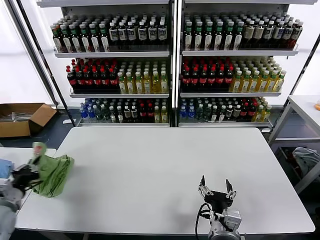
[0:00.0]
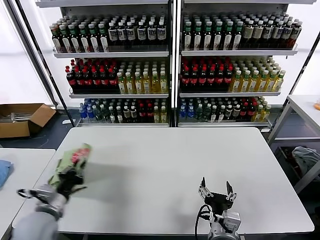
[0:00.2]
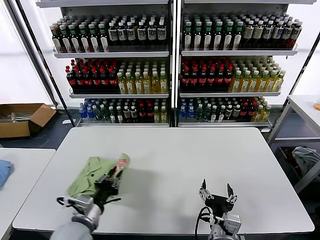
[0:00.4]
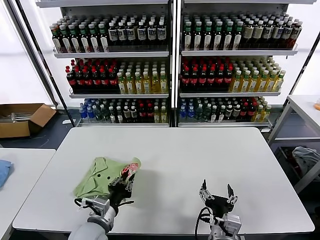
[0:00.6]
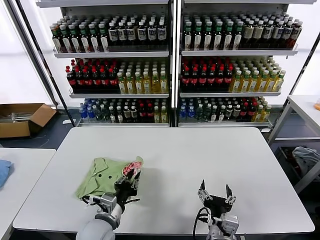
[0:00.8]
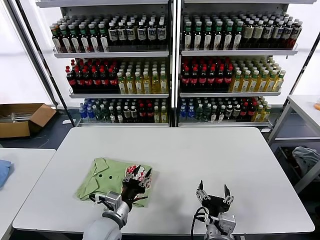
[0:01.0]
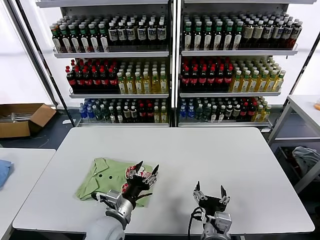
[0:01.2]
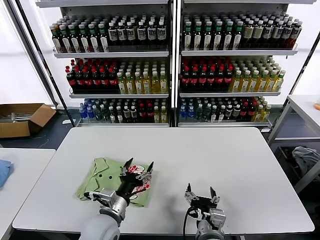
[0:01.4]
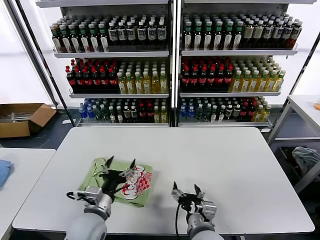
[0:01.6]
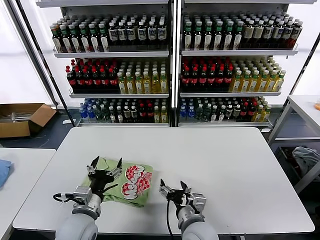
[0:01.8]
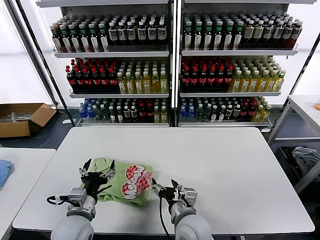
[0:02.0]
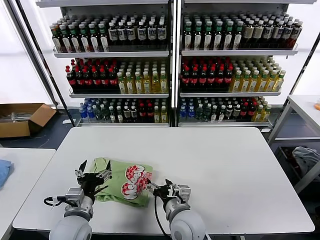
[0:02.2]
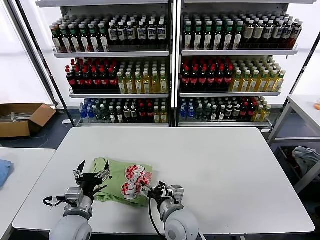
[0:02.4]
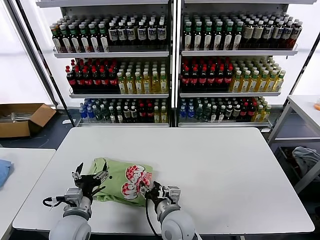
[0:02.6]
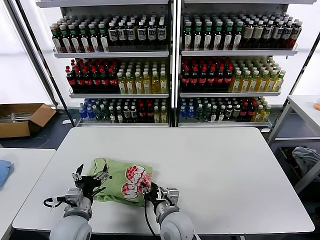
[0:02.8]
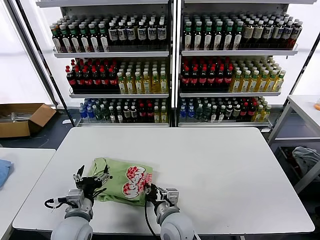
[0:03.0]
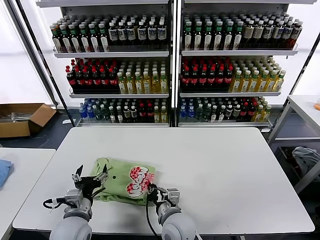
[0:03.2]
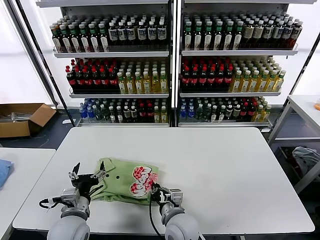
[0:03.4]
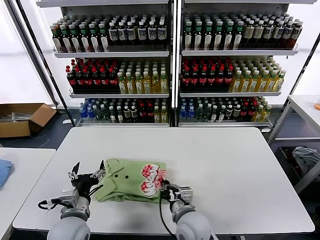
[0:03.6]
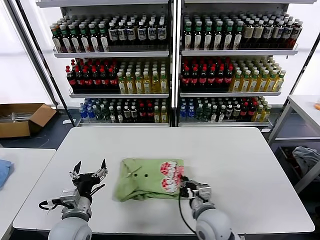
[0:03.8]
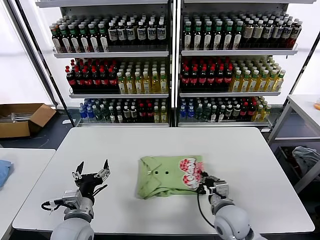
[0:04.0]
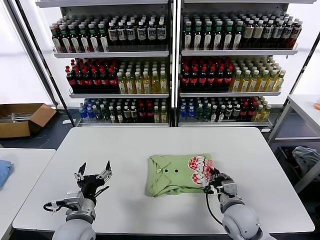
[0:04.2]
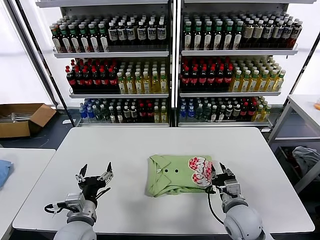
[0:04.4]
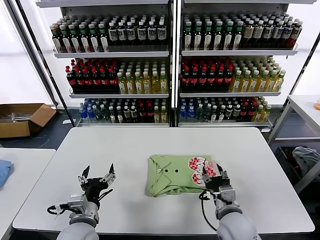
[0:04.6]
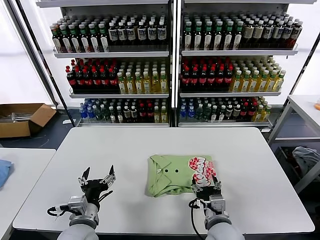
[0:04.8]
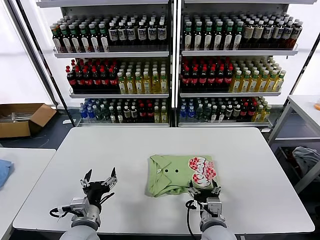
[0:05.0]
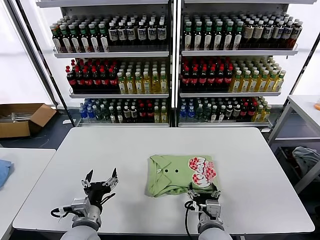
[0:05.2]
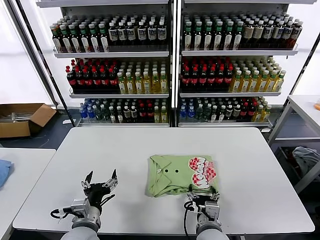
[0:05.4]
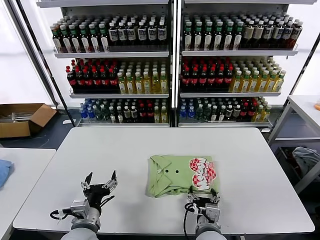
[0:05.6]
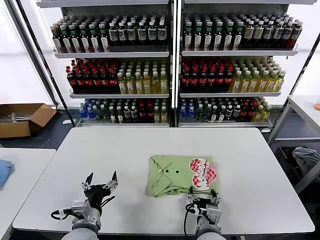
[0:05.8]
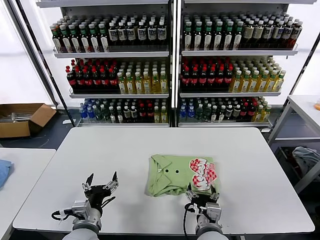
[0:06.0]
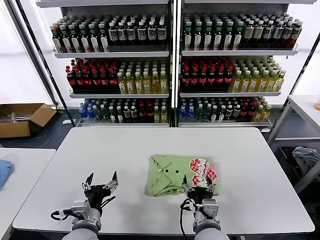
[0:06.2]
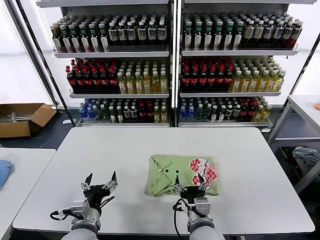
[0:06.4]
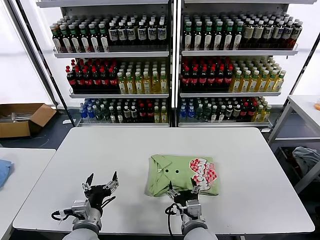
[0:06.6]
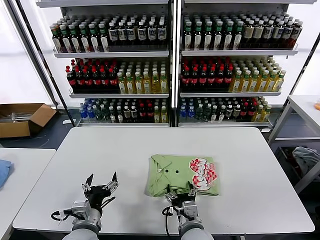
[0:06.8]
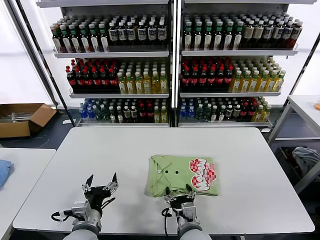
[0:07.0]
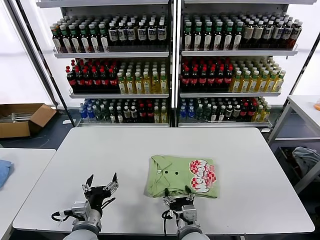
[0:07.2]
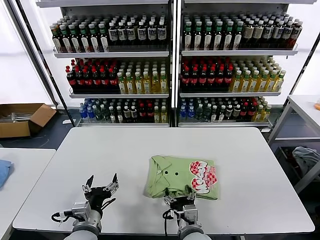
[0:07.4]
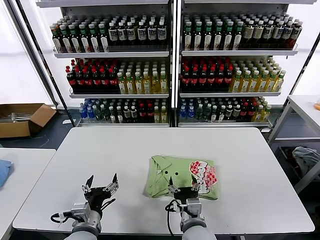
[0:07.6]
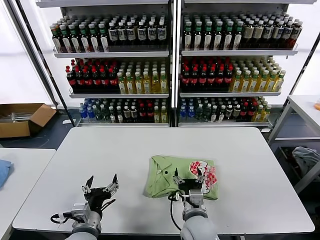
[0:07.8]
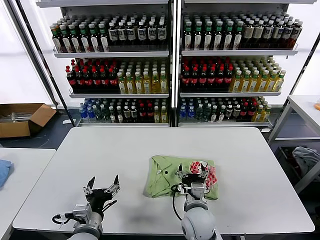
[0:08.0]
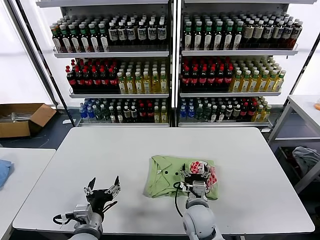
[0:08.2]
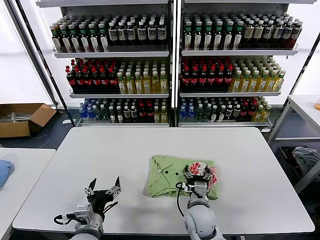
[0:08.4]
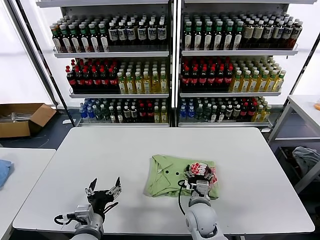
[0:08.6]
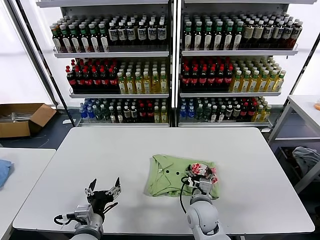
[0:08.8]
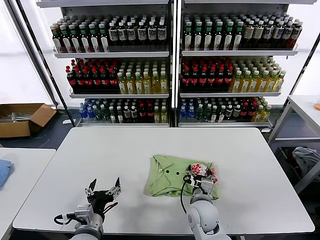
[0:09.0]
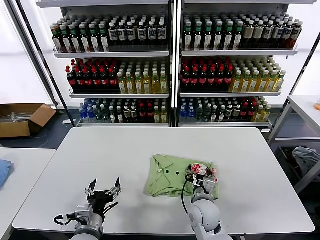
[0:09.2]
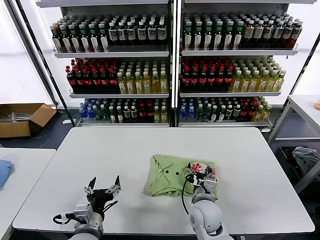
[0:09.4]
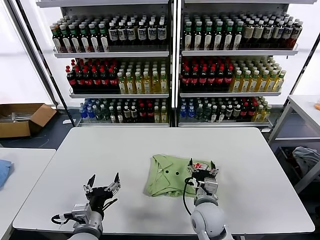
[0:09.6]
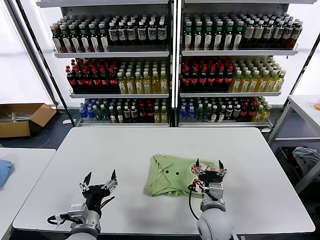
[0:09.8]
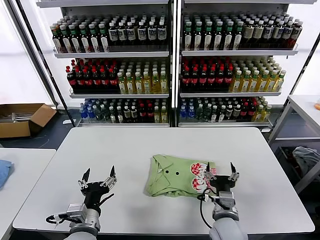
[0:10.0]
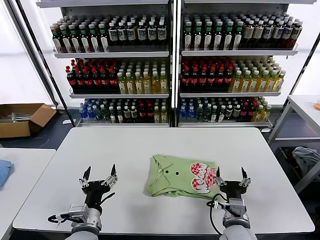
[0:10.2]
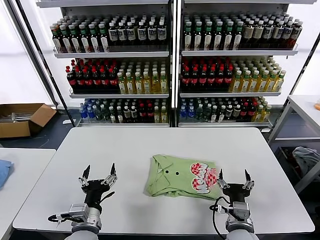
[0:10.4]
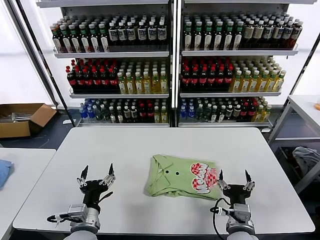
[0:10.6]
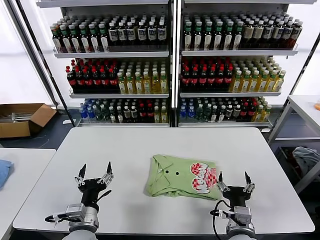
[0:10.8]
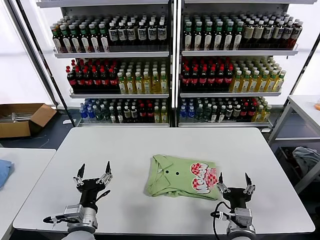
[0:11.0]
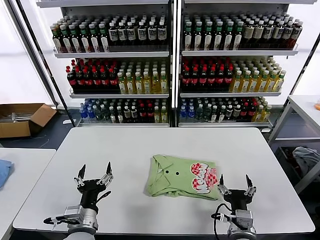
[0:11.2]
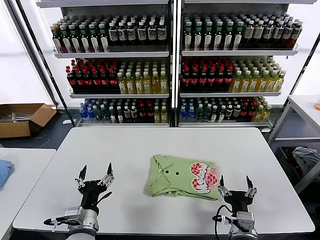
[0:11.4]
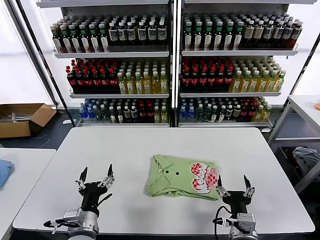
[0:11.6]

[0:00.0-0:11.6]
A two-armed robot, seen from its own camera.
Task of the whole recording: fold and organize the clothes.
Step, 0:01.2 to 0:09.6: Drag the clothes to the center of the table.
0:00.0 to 0:01.4: The left gripper moves to the right, approximately 30 cm, and opens.
0:01.4 to 0:02.8: The left gripper heads to the left, covering some 10 cm; the right gripper shifts about 10 cm to the left and forward, and closes.
0:02.8 to 0:04.4: The right gripper goes approximately 20 cm to the right.
0:04.4 to 0:05.8: The right gripper shifts approximately 10 cm to the left and backward, and opens up.
0:05.8 to 0:07.2: The grippers make only small movements.
0:07.2 to 0:08.8: The right gripper goes some 10 cm forward.
0:08.8 to 0:10.2: The right gripper moves backward and to the right, about 10 cm.
0:10.2 to 0:11.6: The right gripper moves backward, roughly 5 cm.
